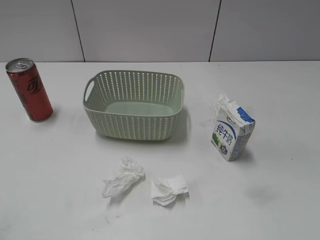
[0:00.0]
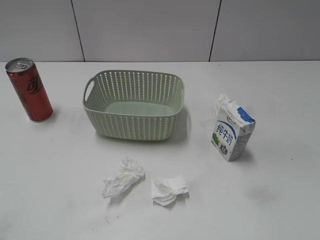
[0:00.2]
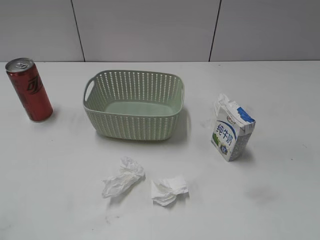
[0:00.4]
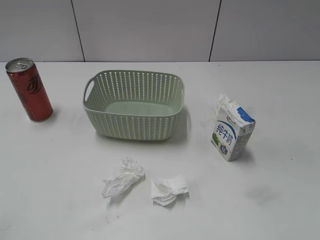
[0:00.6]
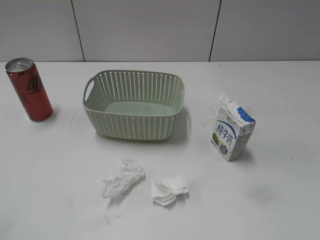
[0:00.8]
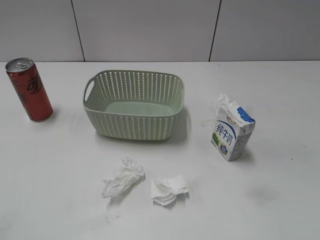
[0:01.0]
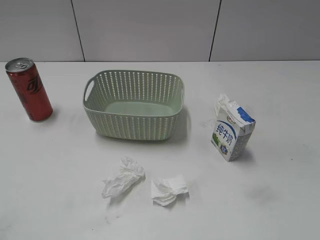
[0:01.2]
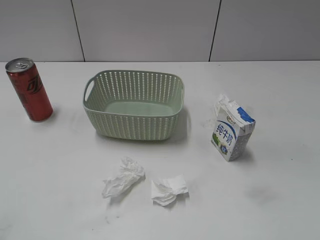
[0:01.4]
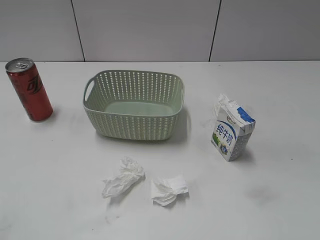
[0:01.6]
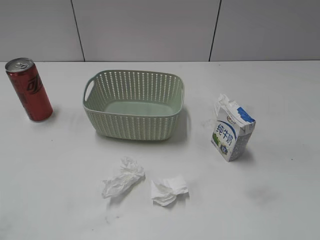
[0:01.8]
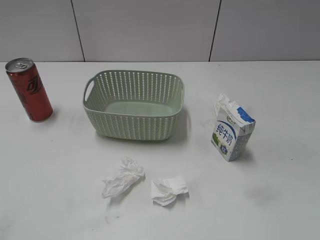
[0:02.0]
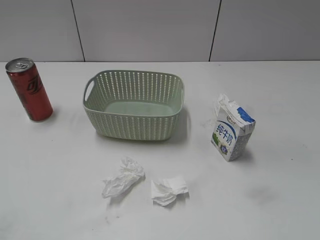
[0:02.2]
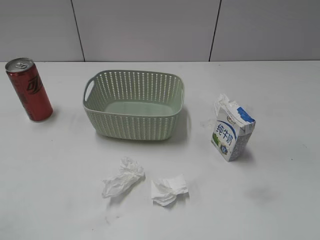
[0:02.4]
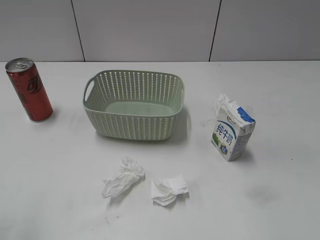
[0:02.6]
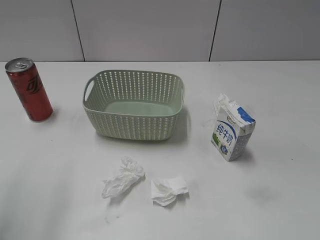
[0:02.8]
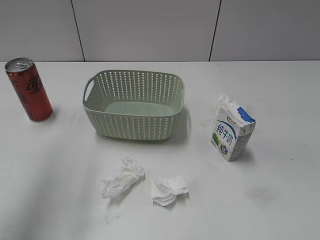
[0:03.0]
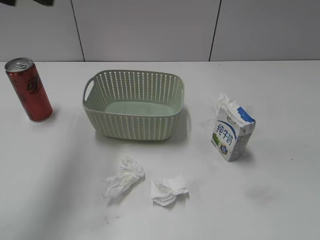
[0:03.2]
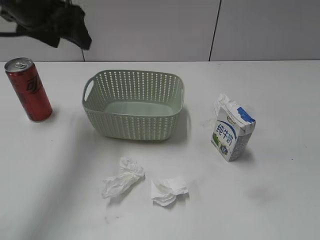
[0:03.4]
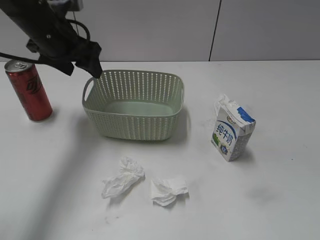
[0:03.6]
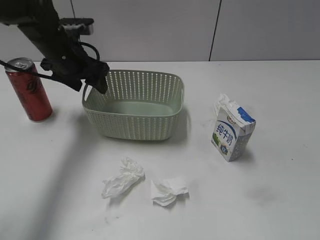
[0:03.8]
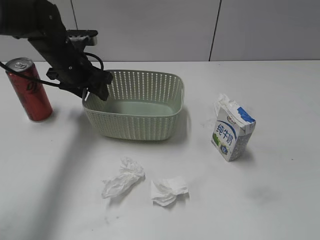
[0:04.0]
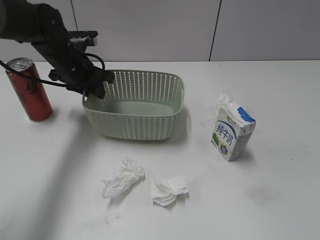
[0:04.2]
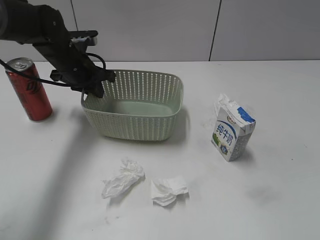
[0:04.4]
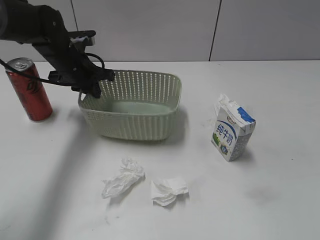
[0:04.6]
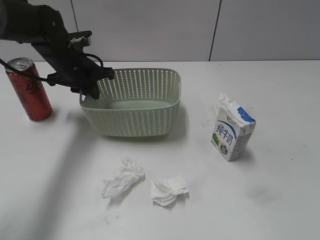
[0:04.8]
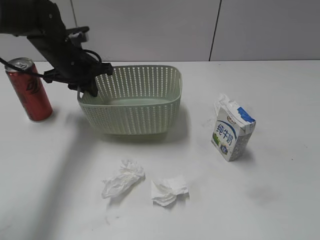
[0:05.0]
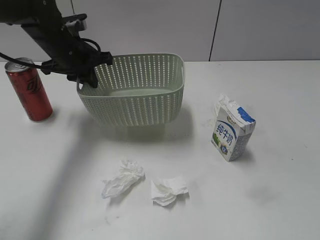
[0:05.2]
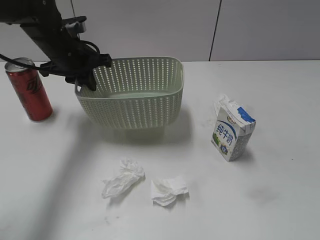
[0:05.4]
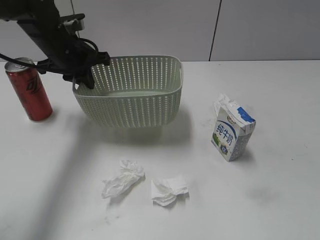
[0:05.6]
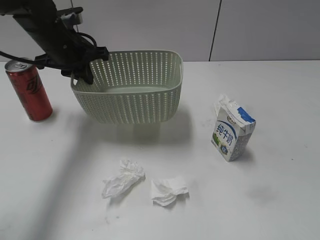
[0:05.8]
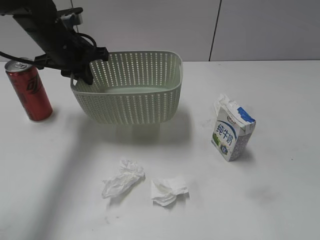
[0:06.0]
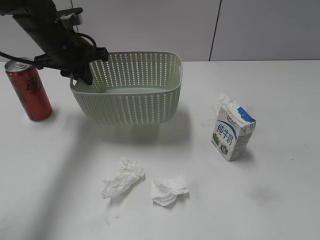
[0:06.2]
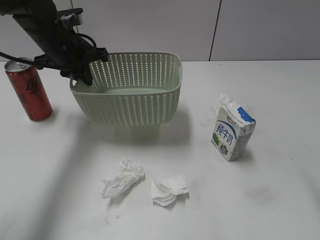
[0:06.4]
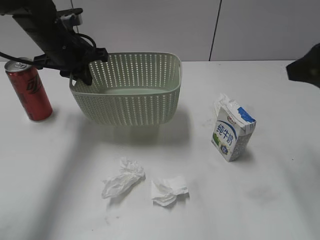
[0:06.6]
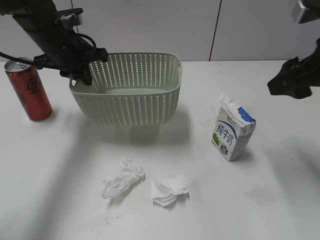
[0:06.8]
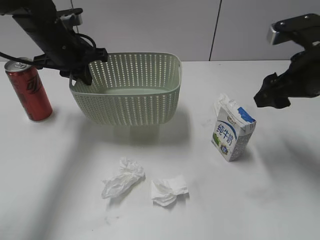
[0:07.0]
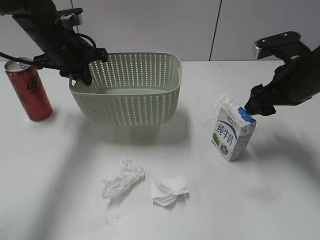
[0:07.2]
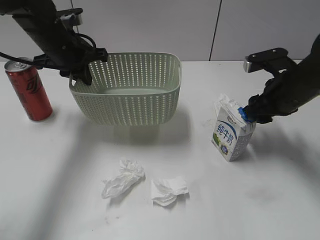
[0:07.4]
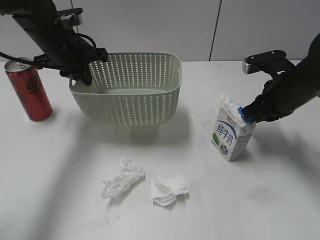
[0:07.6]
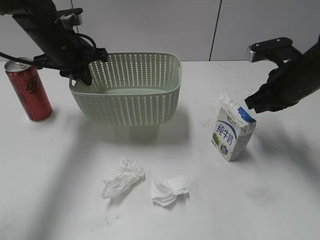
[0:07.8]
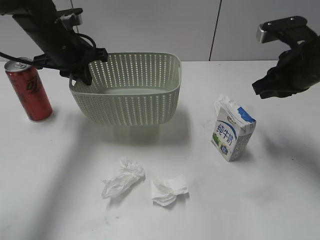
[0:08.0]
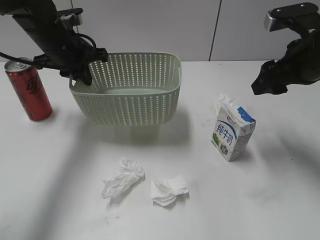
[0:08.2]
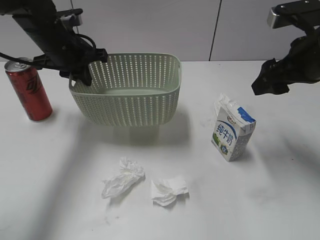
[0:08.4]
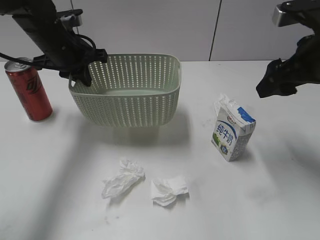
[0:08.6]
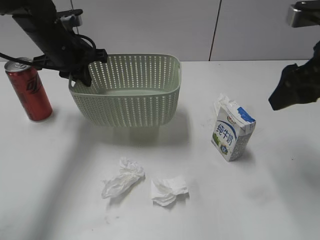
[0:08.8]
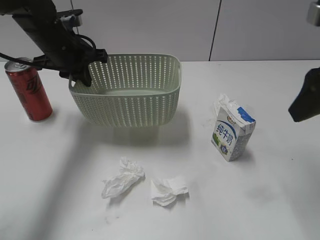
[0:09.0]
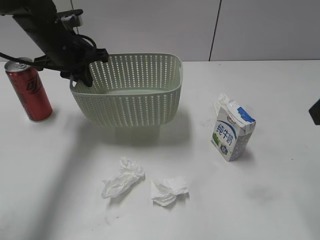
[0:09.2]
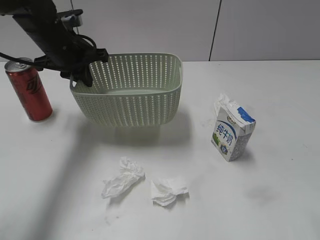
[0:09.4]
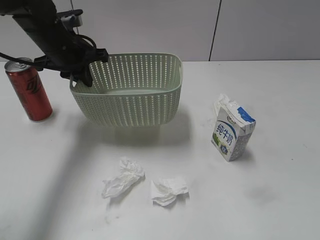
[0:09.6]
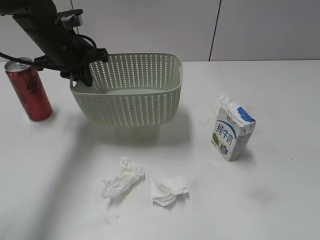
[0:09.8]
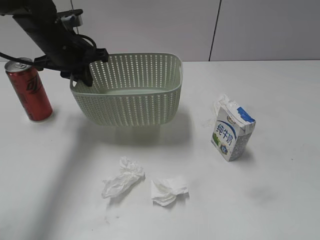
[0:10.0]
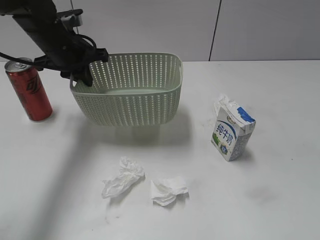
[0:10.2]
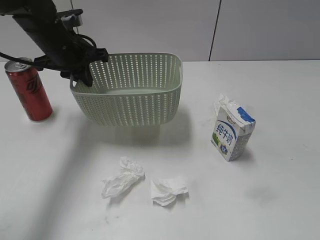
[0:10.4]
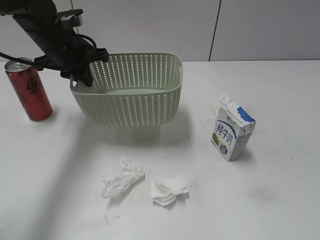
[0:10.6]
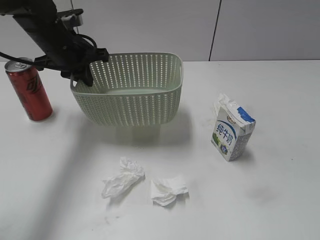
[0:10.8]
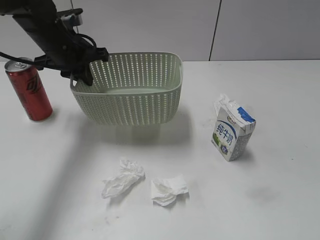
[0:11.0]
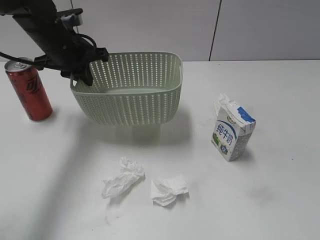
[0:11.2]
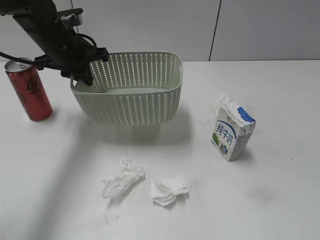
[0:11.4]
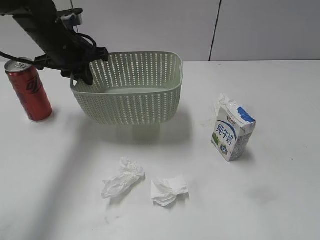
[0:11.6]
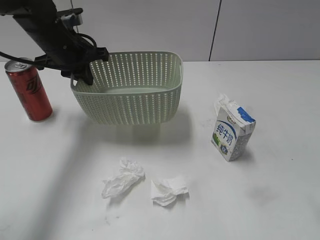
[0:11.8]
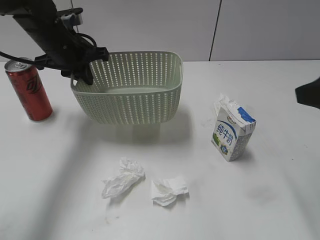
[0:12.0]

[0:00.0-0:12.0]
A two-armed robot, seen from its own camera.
Step, 0:03.2 to 0:04.6: Grasp the basket with left gripper.
Step, 0:04.8 to 0:06.4: Lift the basket with left gripper.
0:01.6 to 0:03.0: The left gripper goes some 25 cm forward and upward, and opens its fingers.
0:03.0 to 0:04.4: The left gripper travels downward and forward by roughly 30 cm, and closes up.
0:04.4 to 0:06.0: The left gripper moves upward, approximately 5 cm. Meanwhile the right gripper goes about 10 cm forward and upward.
0:06.0 to 0:07.6: The right gripper goes approximately 30 cm forward and downward, and closes up.
0:07.6 to 0:09.0: The right gripper shifts about 20 cm upward and backward, and opens up.
0:09.0 to 0:10.4: The right gripper shifts roughly 20 cm backward.
0:10.4 to 0:12.0: The right gripper heads forward, covering roughly 20 cm.

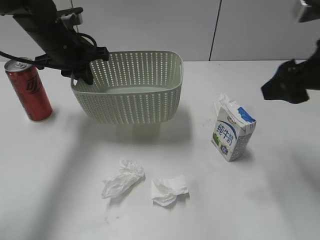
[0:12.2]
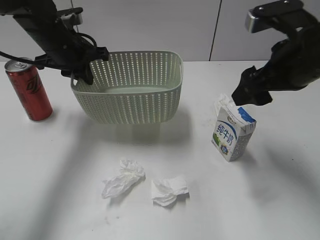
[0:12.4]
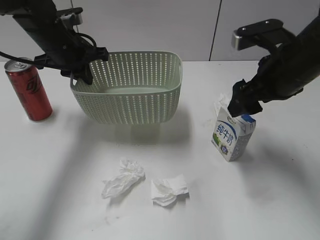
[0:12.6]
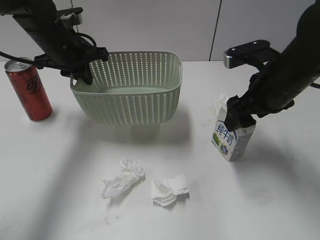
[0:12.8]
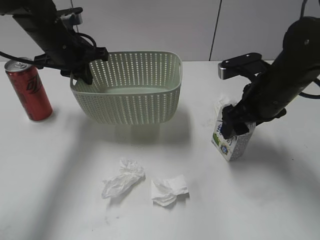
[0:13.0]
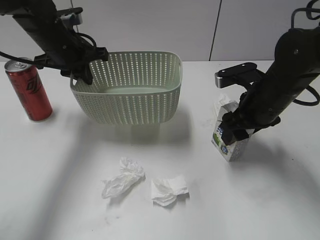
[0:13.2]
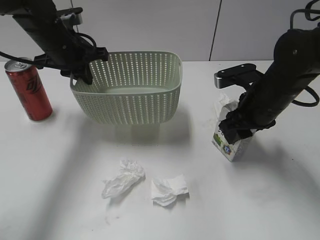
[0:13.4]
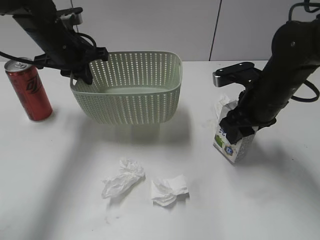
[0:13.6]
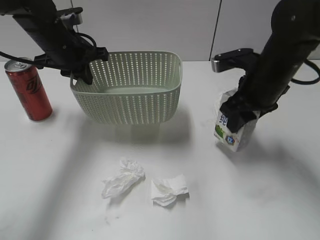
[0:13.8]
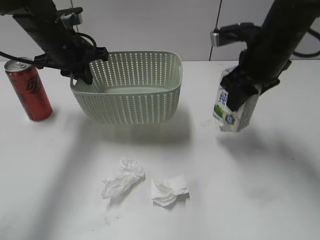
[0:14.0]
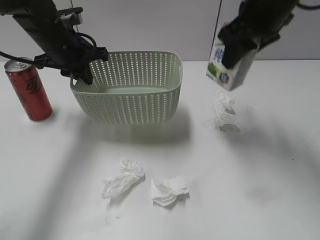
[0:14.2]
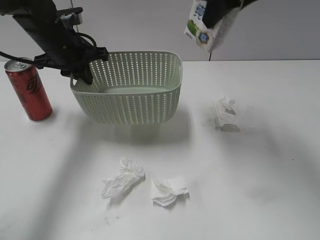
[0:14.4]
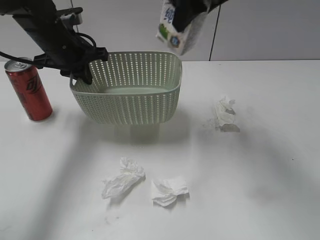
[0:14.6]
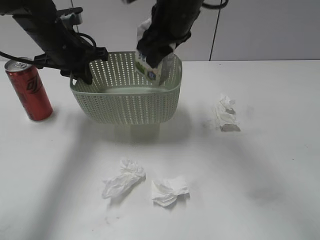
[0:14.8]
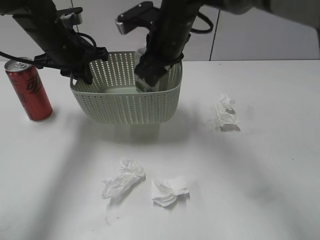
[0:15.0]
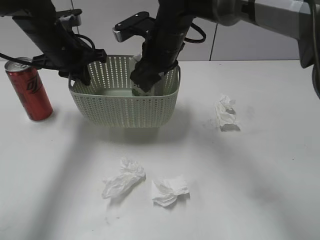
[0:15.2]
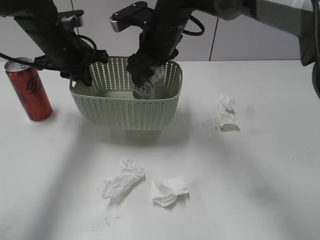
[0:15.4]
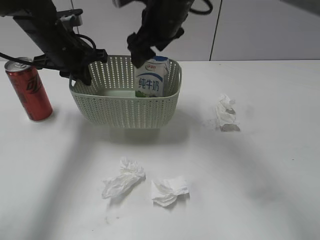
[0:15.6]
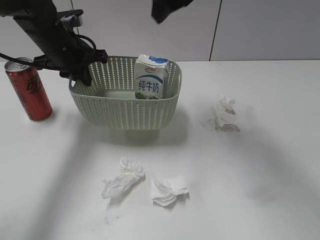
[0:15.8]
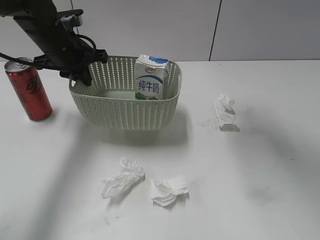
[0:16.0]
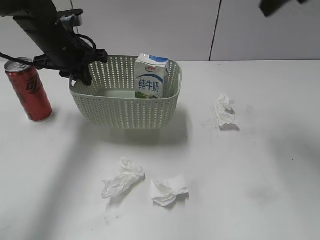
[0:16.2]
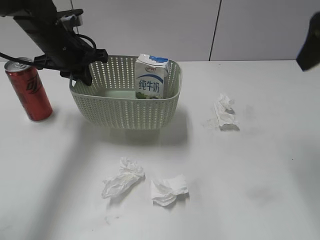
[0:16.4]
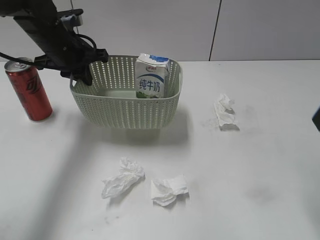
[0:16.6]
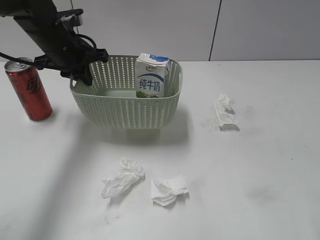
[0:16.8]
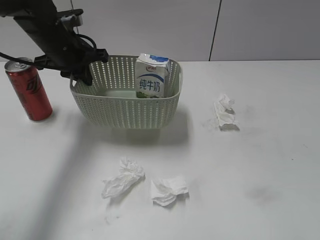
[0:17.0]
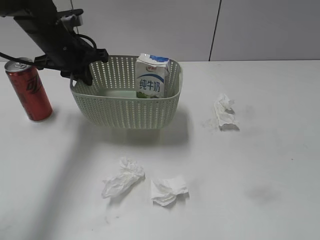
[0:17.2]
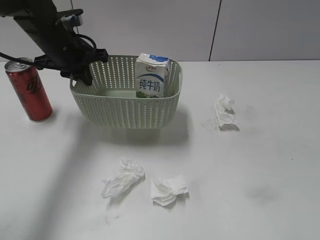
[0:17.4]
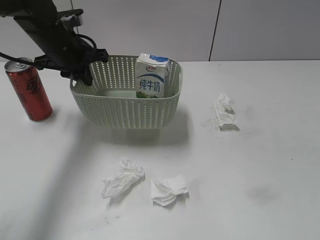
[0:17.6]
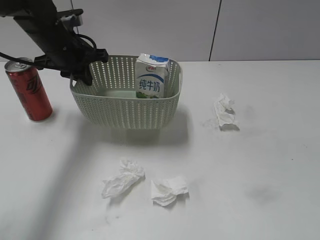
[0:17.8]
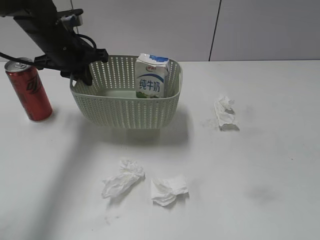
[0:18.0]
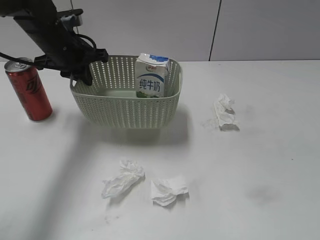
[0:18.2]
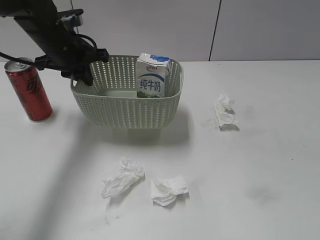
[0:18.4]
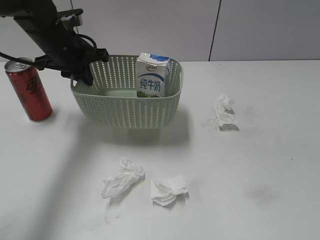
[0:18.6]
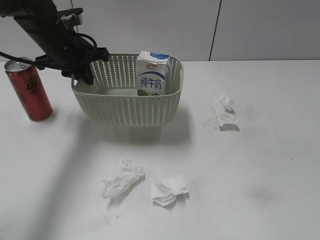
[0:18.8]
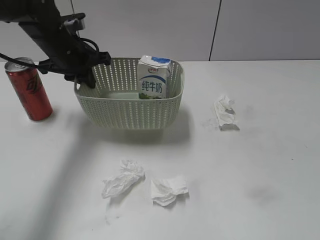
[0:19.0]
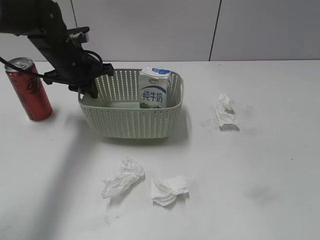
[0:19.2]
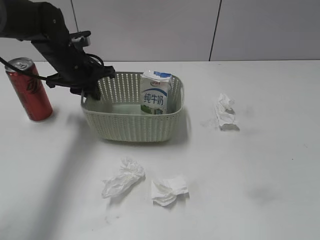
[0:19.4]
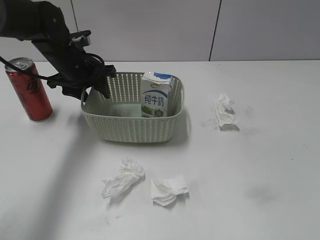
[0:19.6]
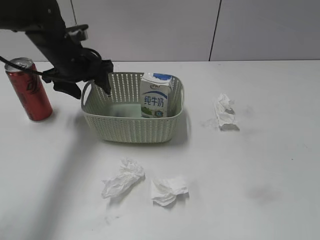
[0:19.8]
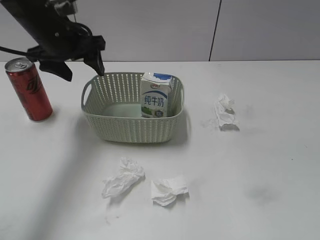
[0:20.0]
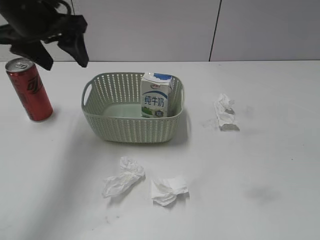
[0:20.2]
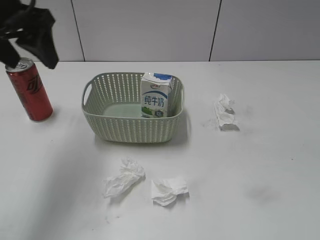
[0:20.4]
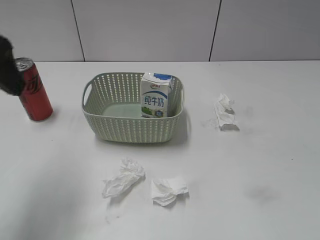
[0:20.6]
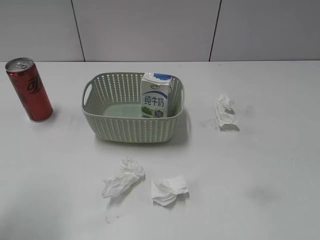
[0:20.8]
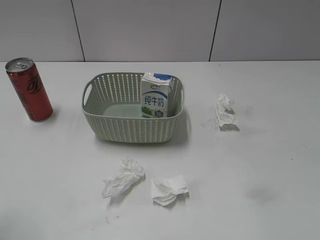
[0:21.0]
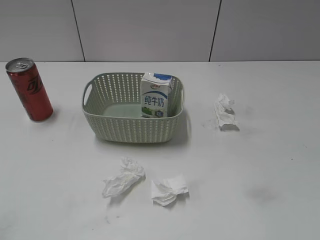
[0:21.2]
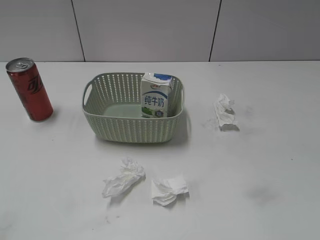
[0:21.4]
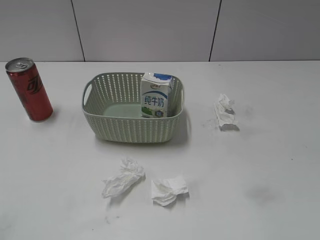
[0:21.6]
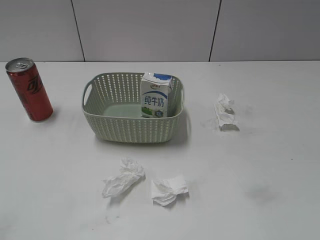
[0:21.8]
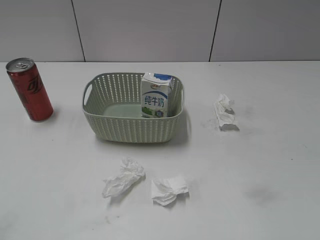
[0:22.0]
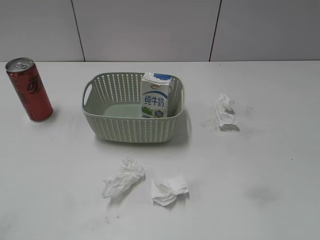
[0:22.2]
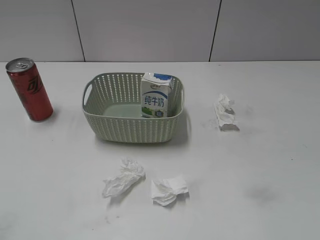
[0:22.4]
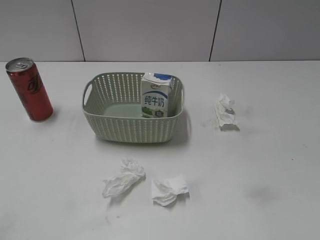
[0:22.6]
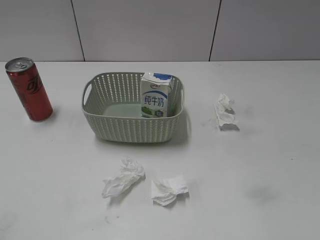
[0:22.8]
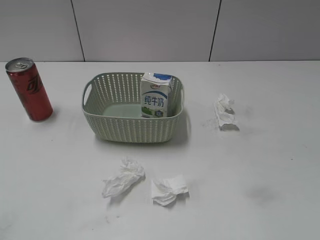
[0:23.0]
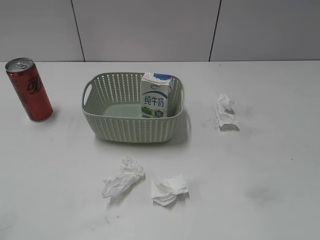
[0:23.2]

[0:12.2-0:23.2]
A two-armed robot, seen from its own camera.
Step, 0:13.6 to 0:15.6: Place the milk in the basket with right gripper.
0:12.2 to 0:13.8: The right gripper is displaced downward, forward and to the left by approximately 15 cm, and closes.
0:13.8 to 0:15.4: The right gripper heads to the left and forward, covering roughly 20 cm, goes upward and returns, some 15 cm each way, and opens its fingers.
0:15.4 to 0:17.0: The right gripper shifts some 40 cm backward and to the right.
0:18.4 to 0:20.0: The left gripper opens up.
0:20.0 to 0:21.6: The left gripper goes some 35 cm backward.
